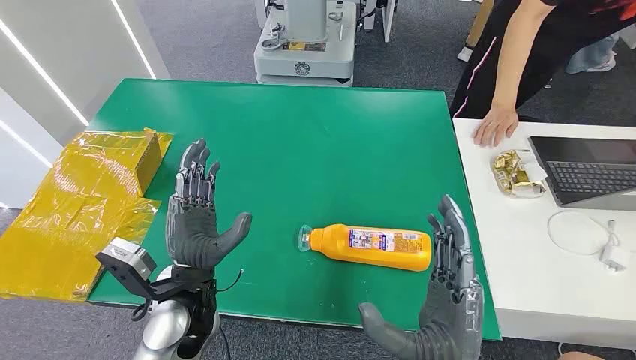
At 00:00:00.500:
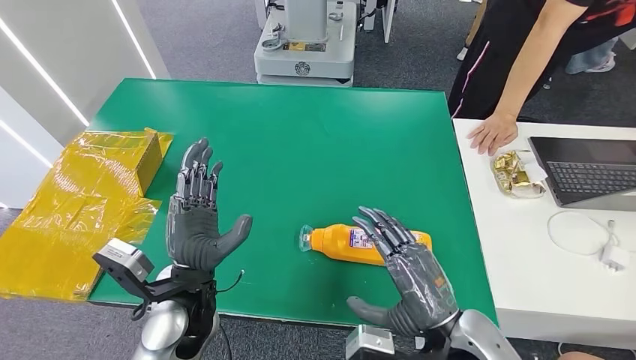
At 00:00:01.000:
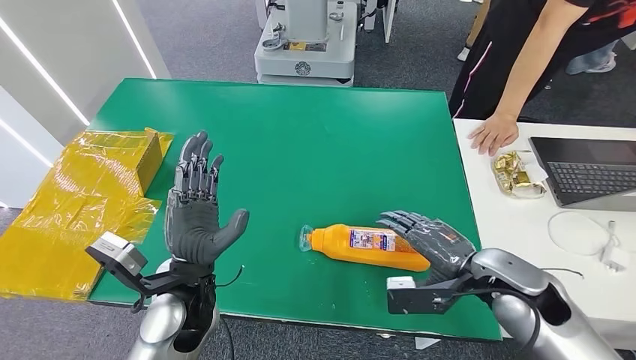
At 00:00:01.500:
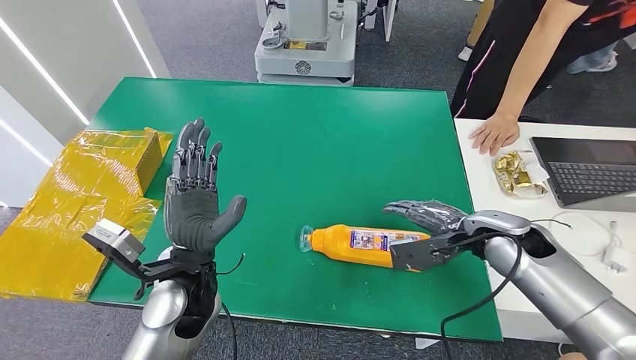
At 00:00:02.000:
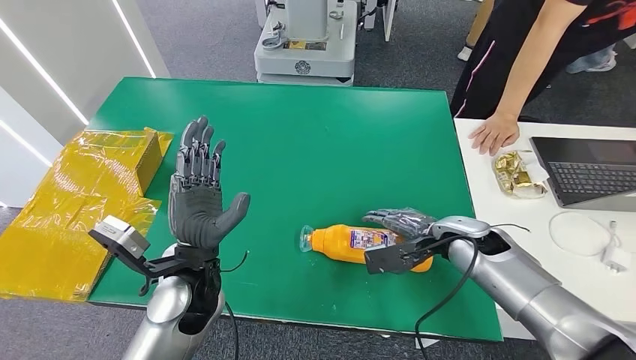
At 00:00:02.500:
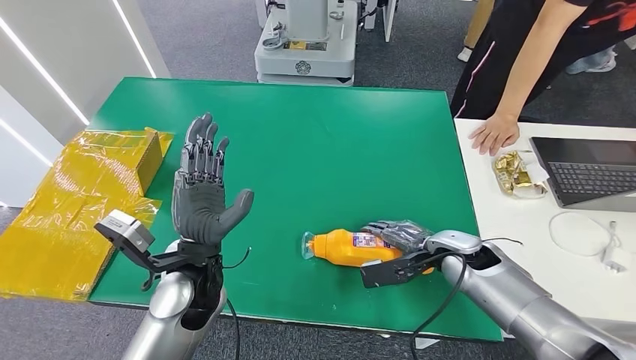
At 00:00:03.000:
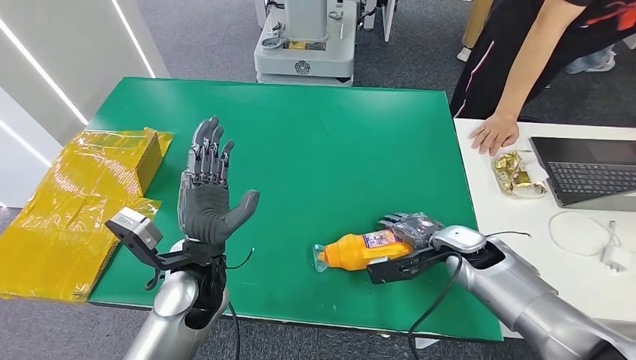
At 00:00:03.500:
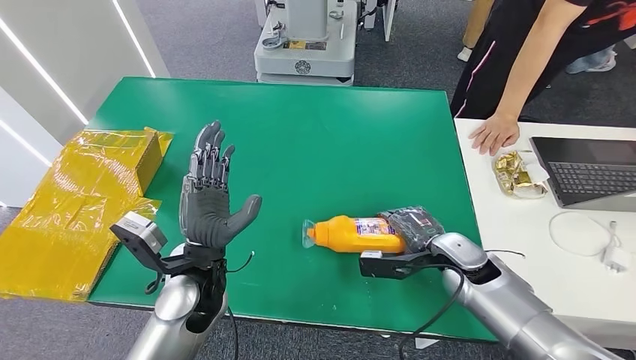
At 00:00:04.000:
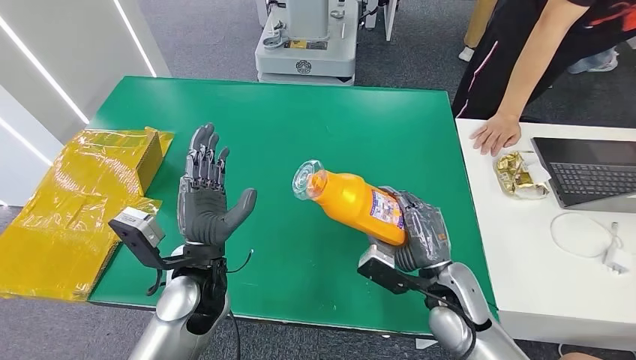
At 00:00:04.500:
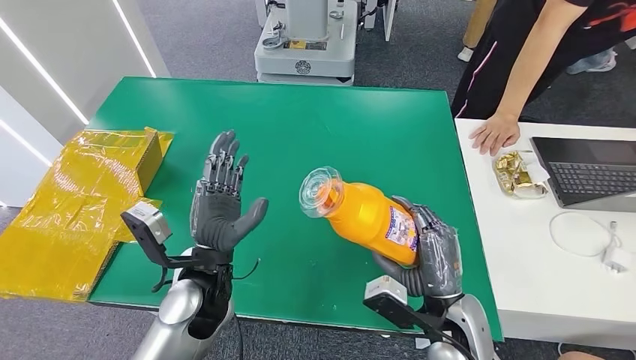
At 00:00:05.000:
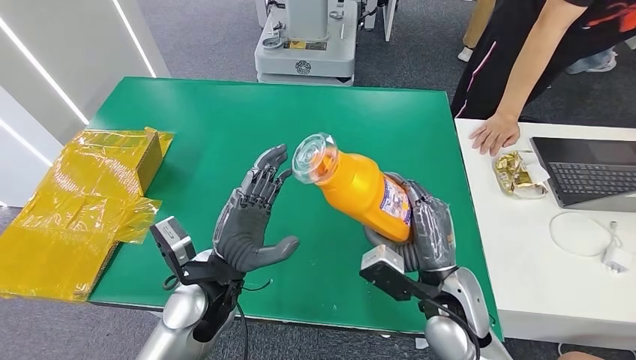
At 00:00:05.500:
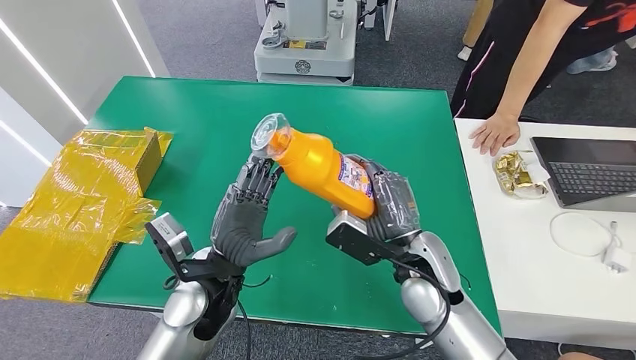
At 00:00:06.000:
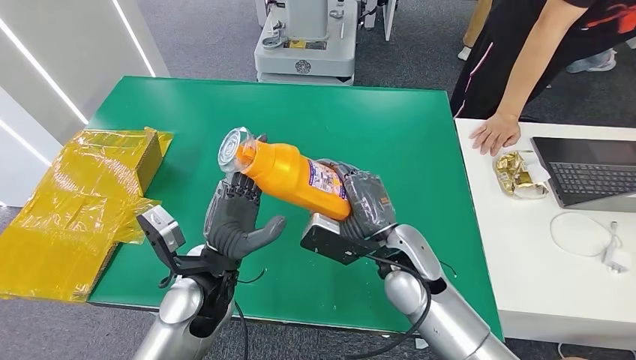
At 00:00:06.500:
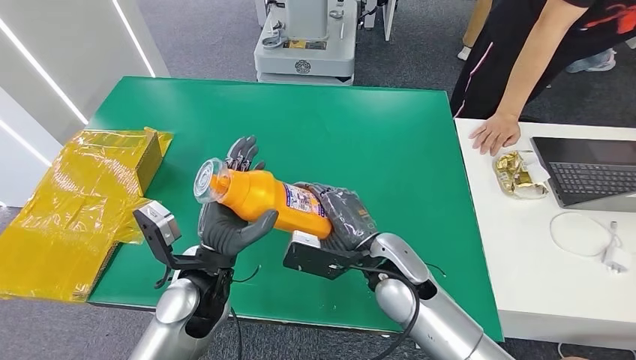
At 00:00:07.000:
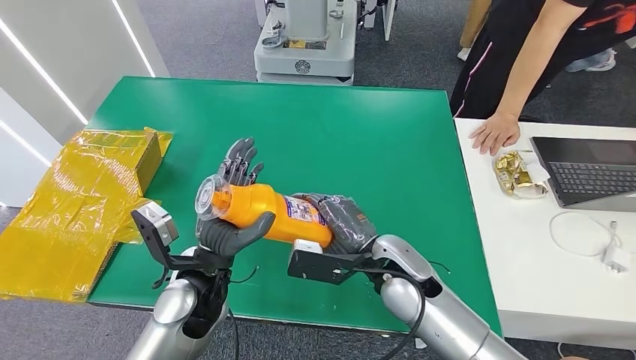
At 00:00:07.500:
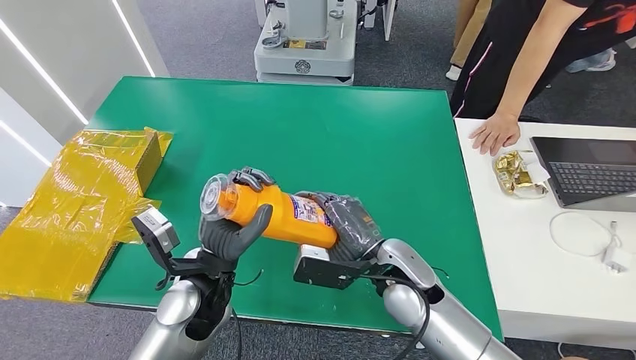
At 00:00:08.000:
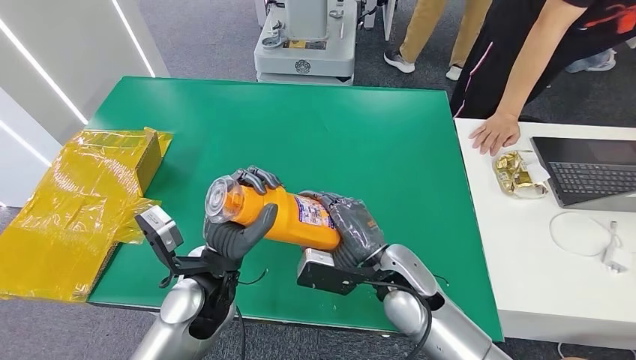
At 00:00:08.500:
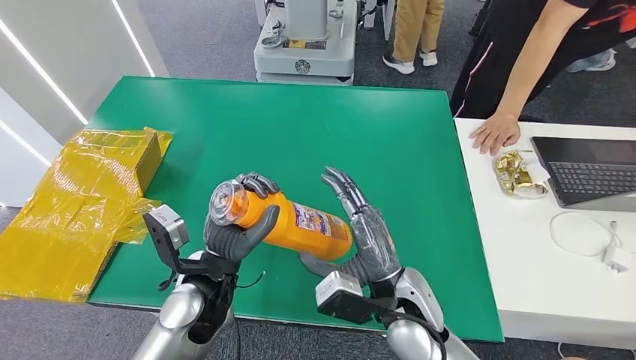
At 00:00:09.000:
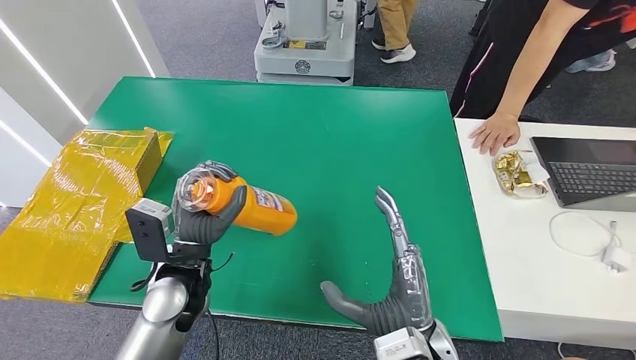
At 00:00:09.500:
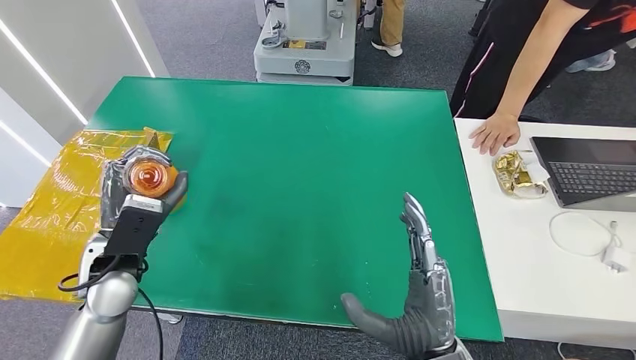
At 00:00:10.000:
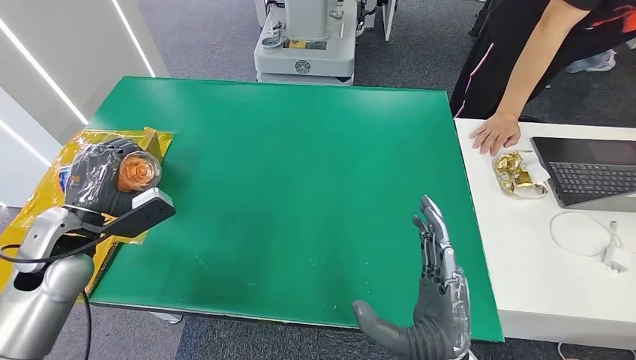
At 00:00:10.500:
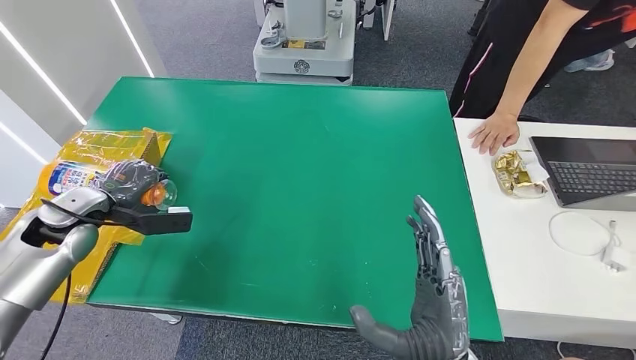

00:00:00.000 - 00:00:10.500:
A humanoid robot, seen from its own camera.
Step, 00:00:00.000 - 00:00:04.000: Pick up the bottle from the table.
00:00:02.000 - 00:00:04.000: The right hand goes about 10 cm backward.
00:00:04.000 - 00:00:06.500: The right hand shifts some 10 cm to the left and upward.
00:00:06.500 - 00:00:08.500: The right hand is displaced backward by some 5 cm.
00:00:08.500 - 00:00:10.500: The left hand is displaced to the left by some 25 cm. The right hand travels backward by some 10 cm.

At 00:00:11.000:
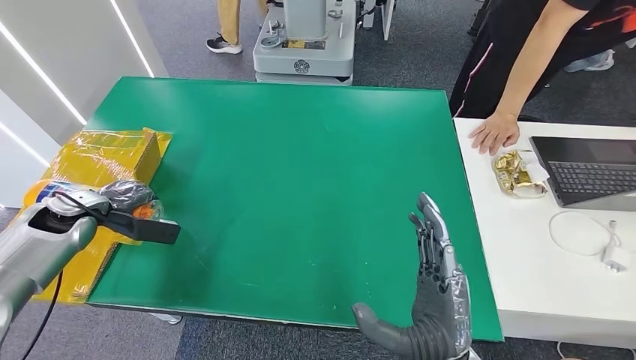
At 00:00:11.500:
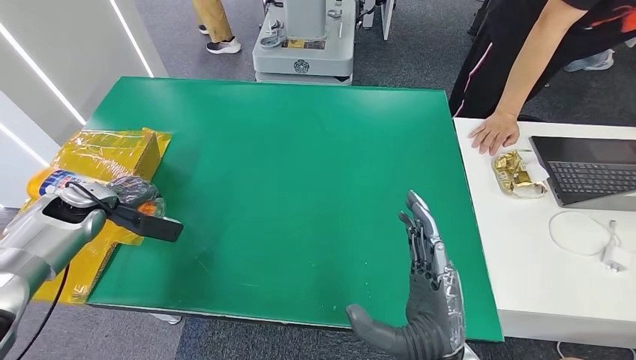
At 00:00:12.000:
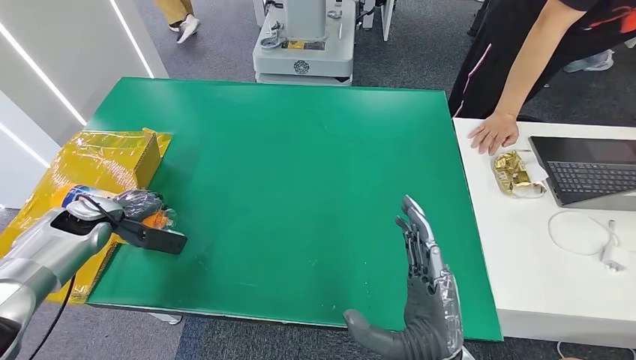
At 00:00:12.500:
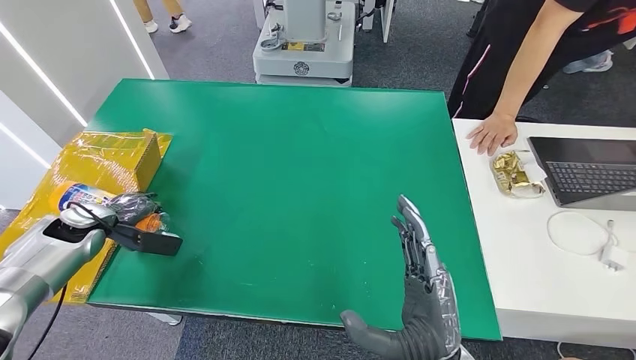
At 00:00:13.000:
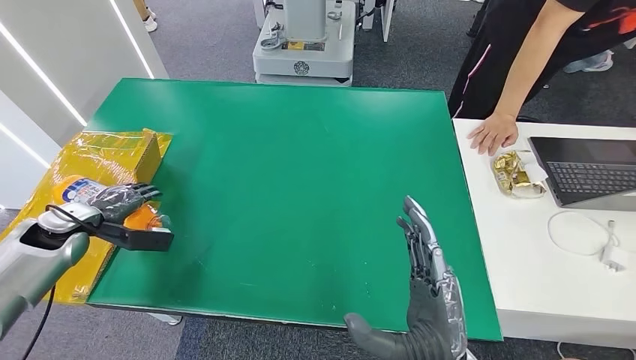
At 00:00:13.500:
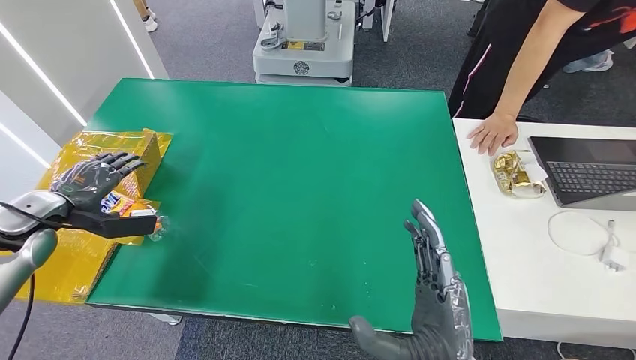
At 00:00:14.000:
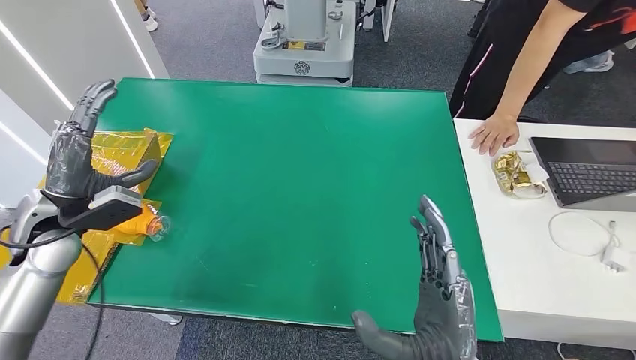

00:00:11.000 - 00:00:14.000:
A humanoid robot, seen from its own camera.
Step, 00:00:11.000 - 00:00:14.000: Turn the bottle to the front side.
00:00:11.000 - 00:00:12.500: The hands move only a little.
00:00:12.500 - 00:00:14.000: The left hand moves upward and to the right, some 15 cm.
